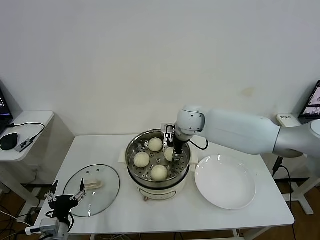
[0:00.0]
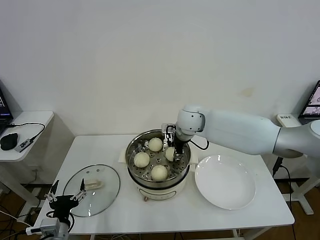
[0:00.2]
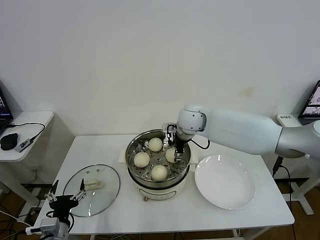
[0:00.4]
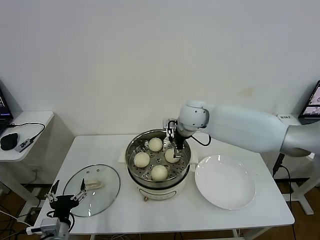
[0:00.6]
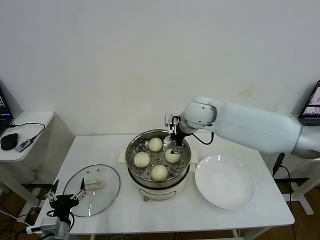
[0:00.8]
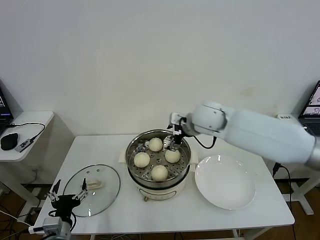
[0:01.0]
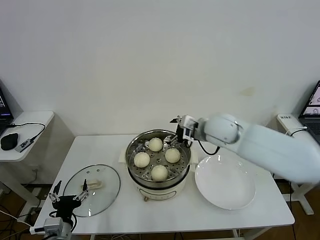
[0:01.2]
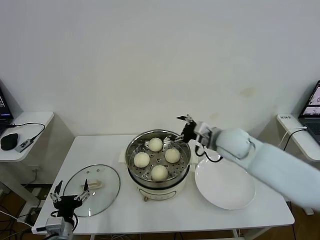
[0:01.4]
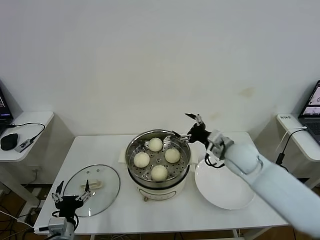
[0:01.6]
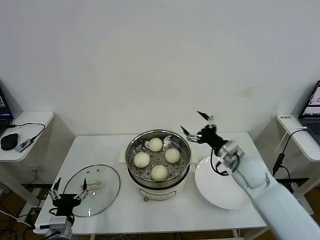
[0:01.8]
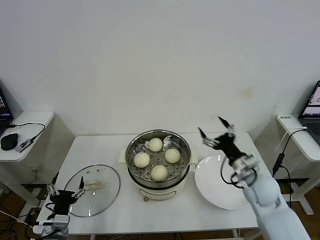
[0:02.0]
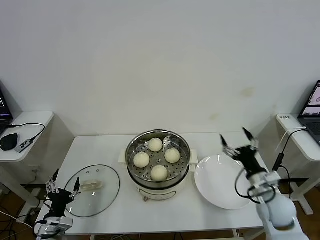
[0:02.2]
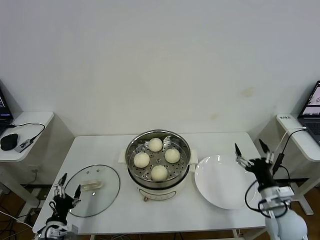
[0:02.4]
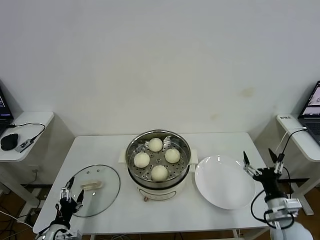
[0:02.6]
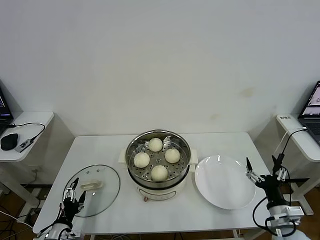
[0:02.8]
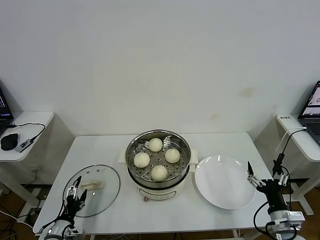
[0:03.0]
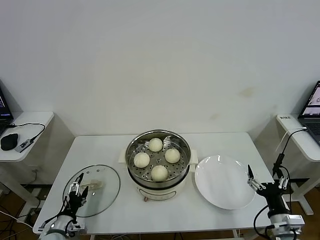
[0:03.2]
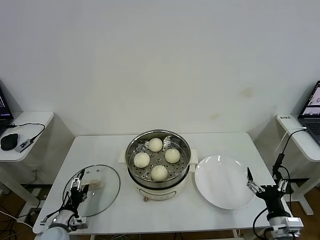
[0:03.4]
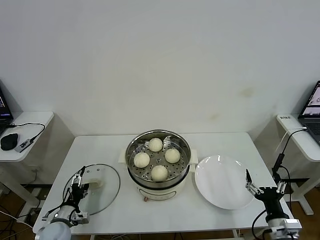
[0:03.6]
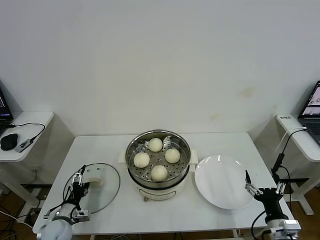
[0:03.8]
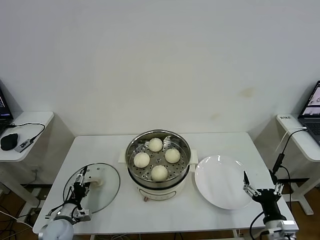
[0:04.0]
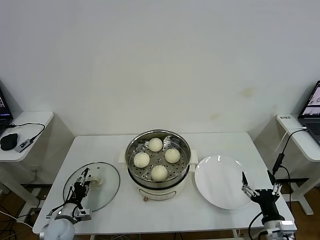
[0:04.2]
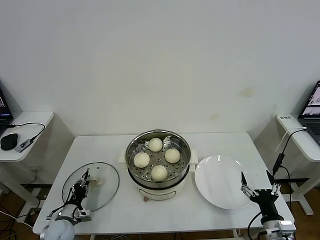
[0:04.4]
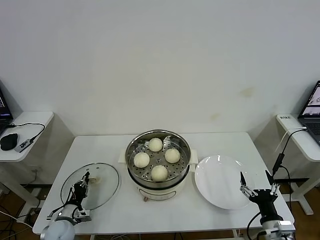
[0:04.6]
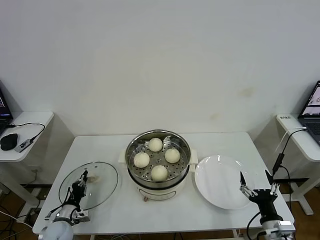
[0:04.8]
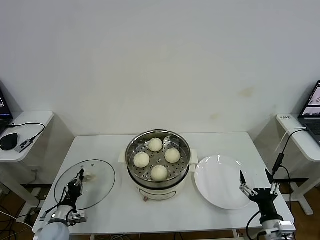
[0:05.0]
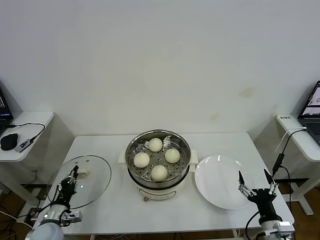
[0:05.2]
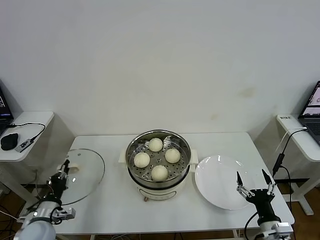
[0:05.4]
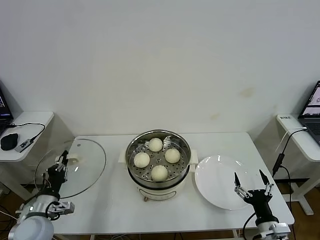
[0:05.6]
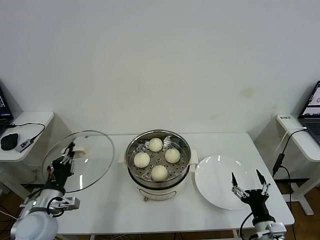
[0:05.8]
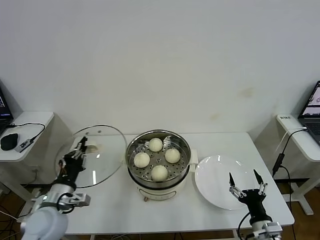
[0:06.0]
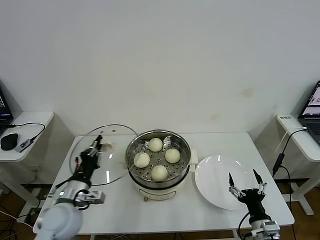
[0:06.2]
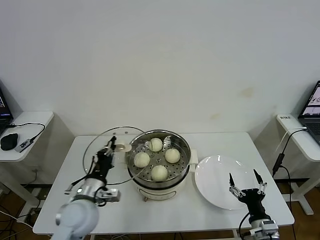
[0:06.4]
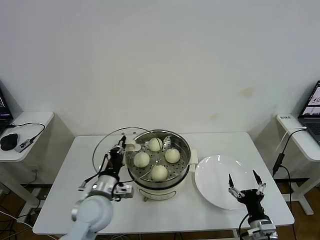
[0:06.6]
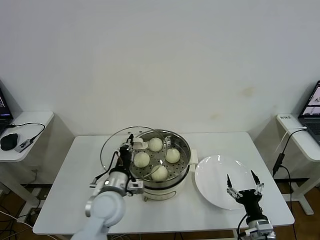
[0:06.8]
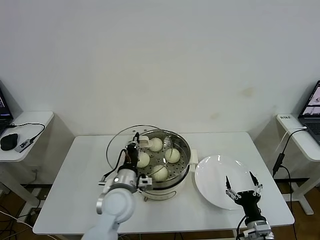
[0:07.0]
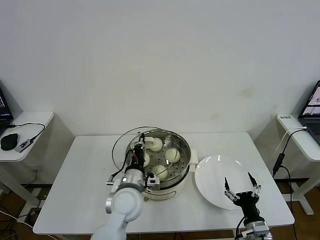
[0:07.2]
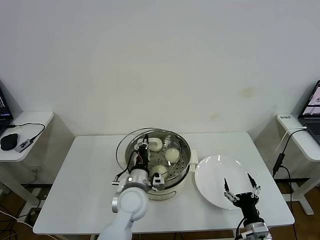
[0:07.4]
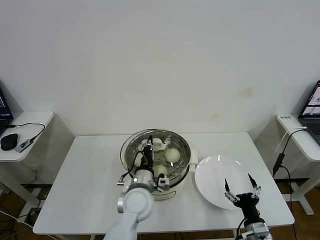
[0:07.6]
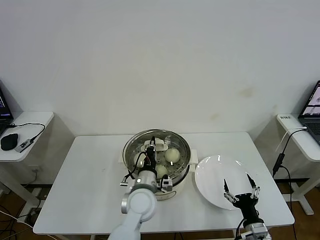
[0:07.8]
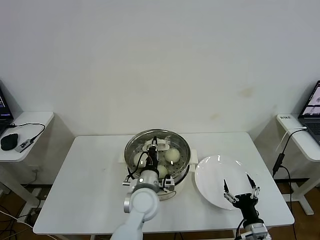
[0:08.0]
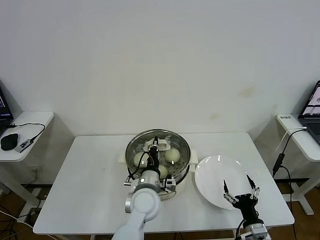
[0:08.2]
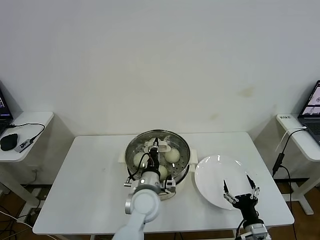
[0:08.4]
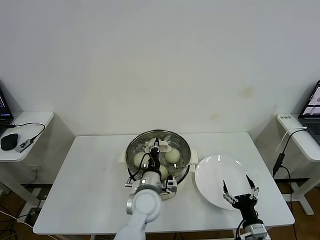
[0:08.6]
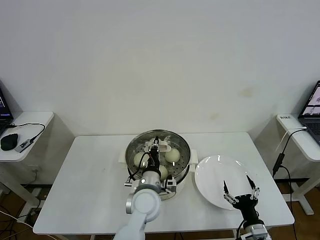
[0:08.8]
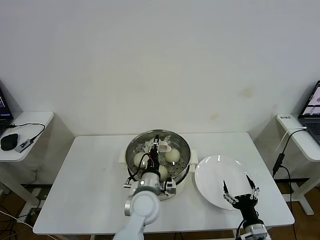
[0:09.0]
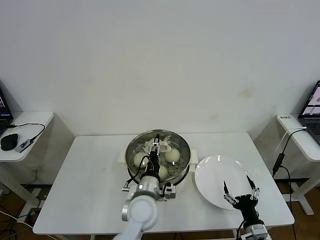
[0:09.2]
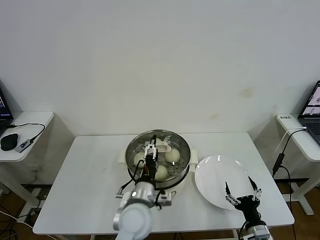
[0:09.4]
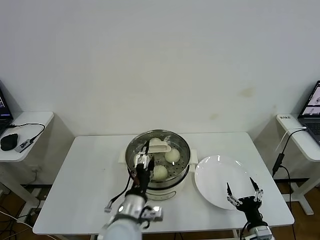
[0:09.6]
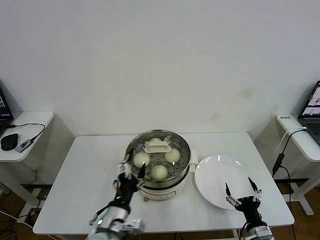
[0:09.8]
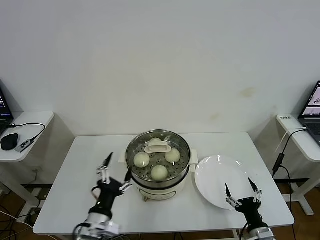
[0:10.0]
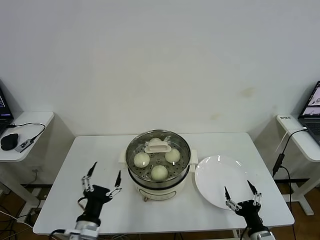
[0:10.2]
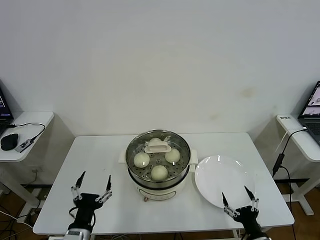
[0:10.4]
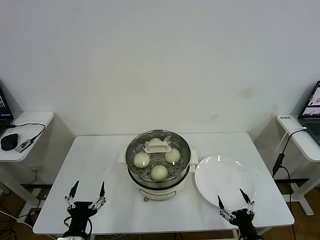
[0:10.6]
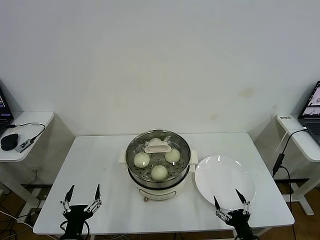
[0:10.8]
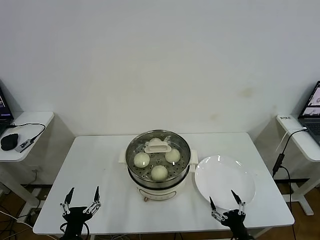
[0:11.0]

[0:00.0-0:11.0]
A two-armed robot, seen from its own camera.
Task of the whole recording: take steamed baozi put them in steamer then cover it.
Step, 0:00.6 to 0:04.6: Grasp the pot lid with left gripper.
Step, 0:05.0 to 0:09.0: Place the pot lid on the steamer with left gripper.
0:00.0 to 0:01.6: The right gripper goes roughly 20 cm to the right and backward, and opens.
0:01.6 to 0:03.2: The left gripper is displaced downward and to the left by some 10 cm. Meanwhile the right gripper shifts about 30 cm backward, downward and to the right.
0:03.2 to 0:04.8: The left gripper goes about 5 cm forward, and closes up.
0:04.8 to 0:06.2: The left gripper travels upward and to the right by about 20 cm.
0:06.2 to 0:07.8: The left gripper heads to the right, covering approximately 20 cm.
0:07.8 to 0:09.4: The left gripper opens.
0:09.4 to 0:11.0: The left gripper goes approximately 25 cm to the left and backward.
